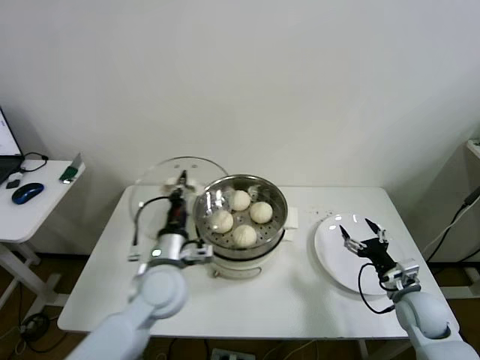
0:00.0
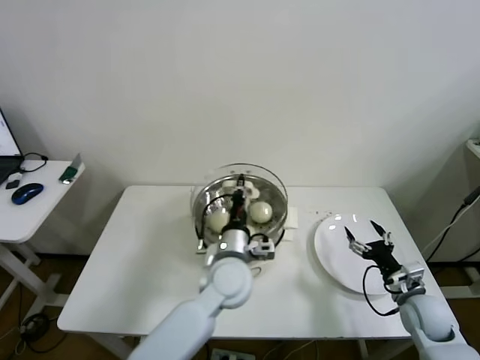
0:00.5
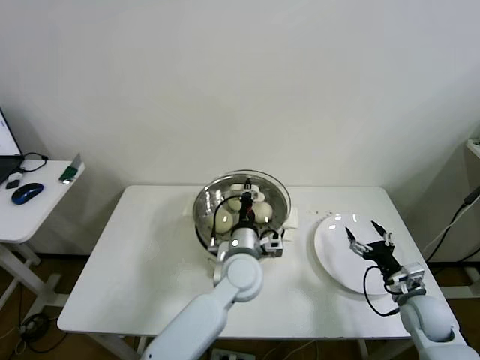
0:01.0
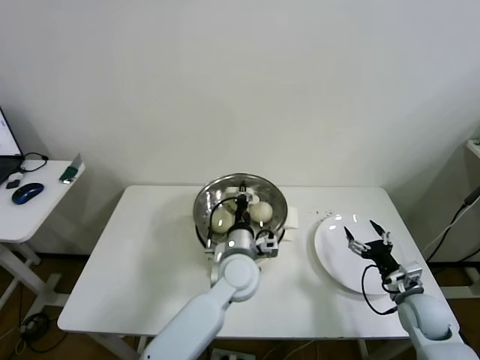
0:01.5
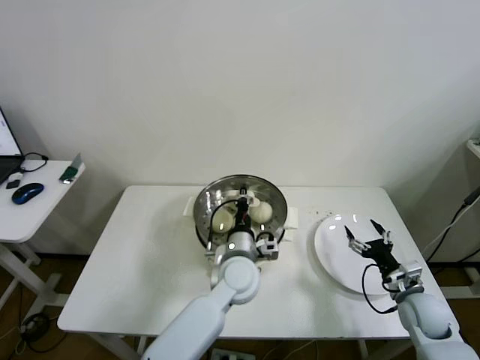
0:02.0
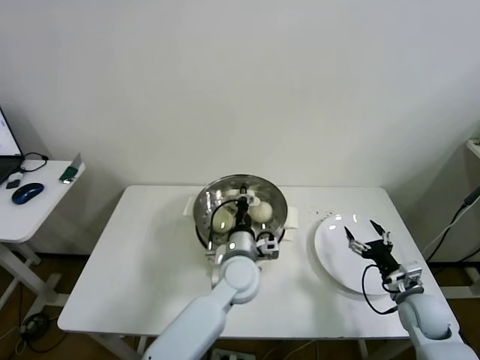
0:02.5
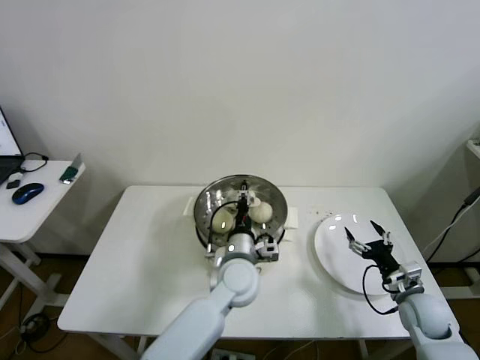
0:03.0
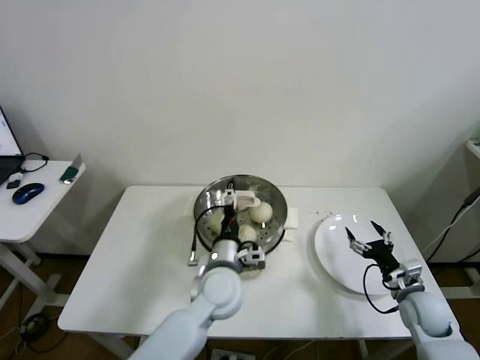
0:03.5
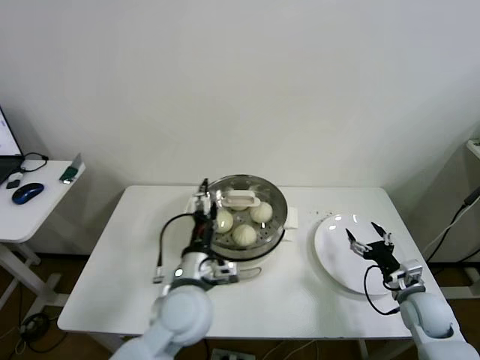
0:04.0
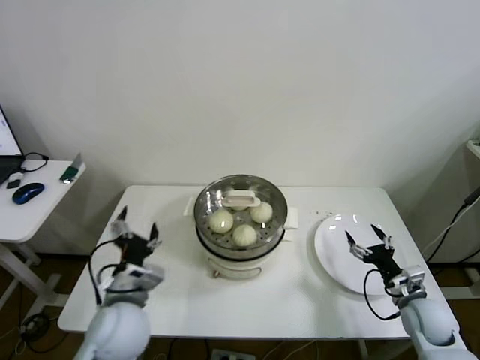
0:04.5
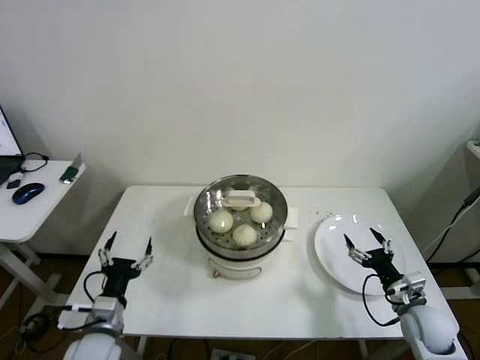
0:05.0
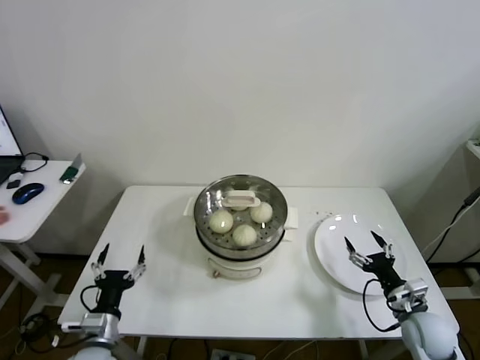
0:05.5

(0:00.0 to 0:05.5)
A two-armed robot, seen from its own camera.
Step, 0:00.0 - 0:03.5: Place the pot lid on the steamer with left gripper.
0:00.0 - 0:02.0: The left gripper travels to the right by roughly 15 cm.
0:02.0 - 0:03.5: The left gripper opens its fingers.
0:03.5 - 0:05.5: The left gripper is displaced to the left and backward by approximately 30 cm.

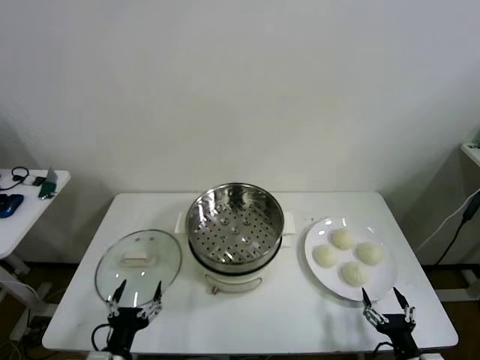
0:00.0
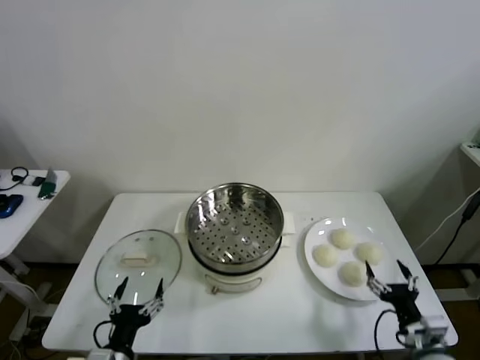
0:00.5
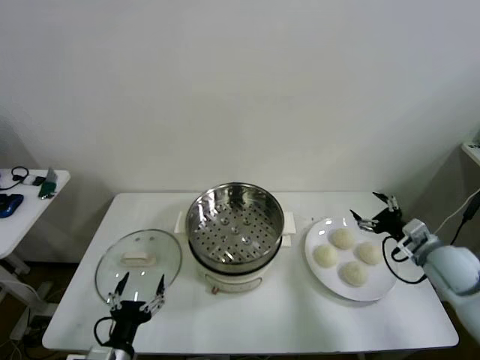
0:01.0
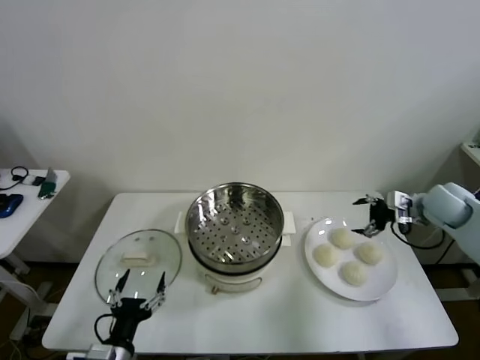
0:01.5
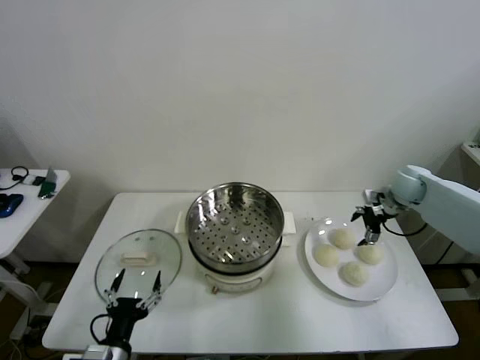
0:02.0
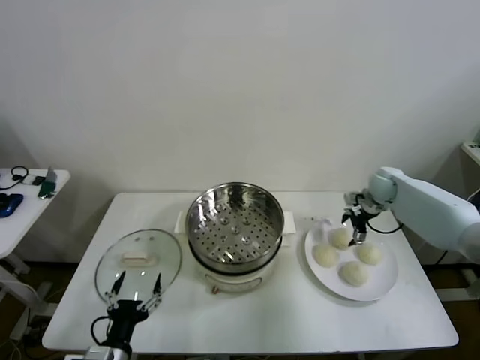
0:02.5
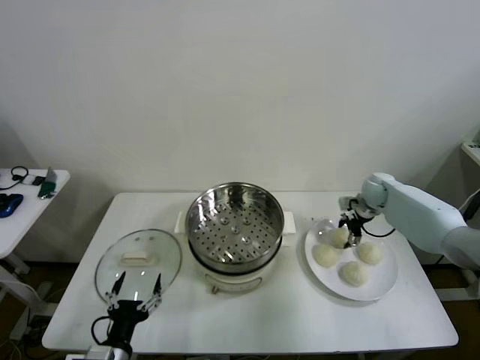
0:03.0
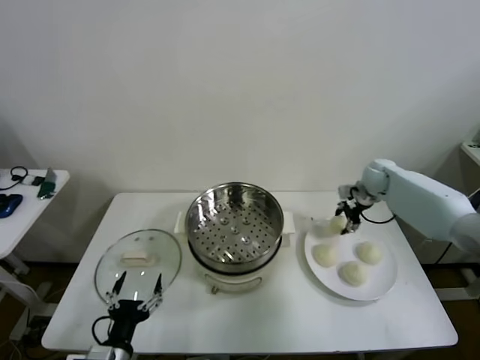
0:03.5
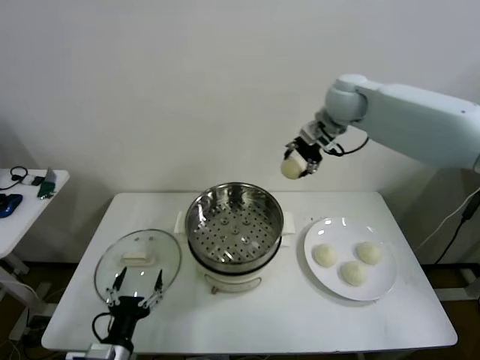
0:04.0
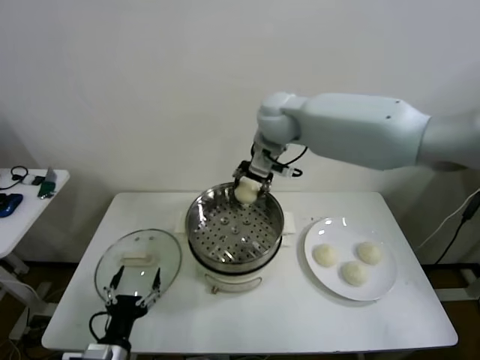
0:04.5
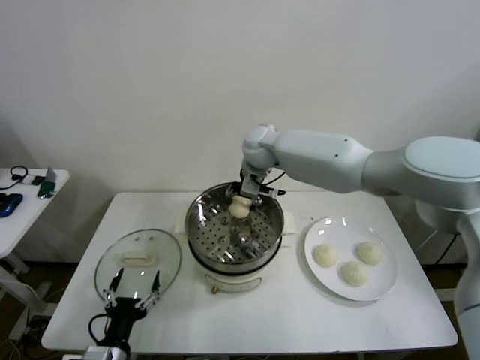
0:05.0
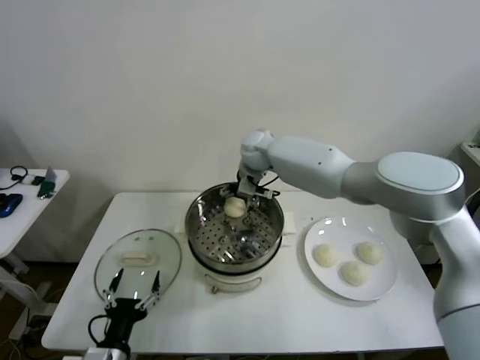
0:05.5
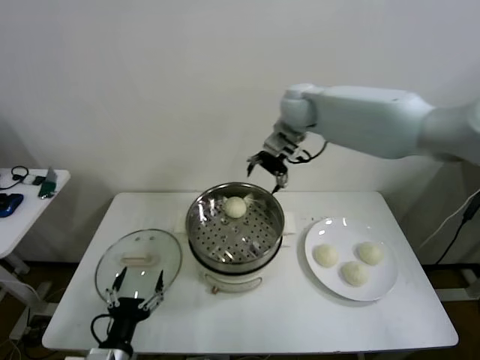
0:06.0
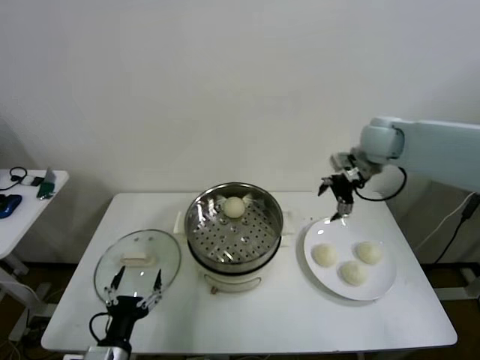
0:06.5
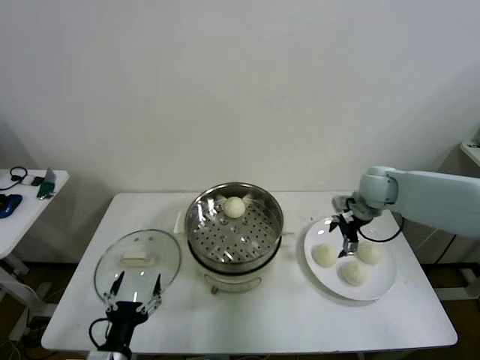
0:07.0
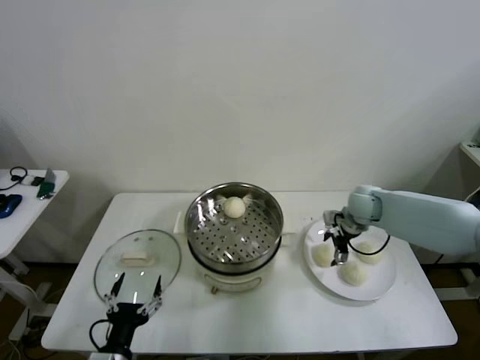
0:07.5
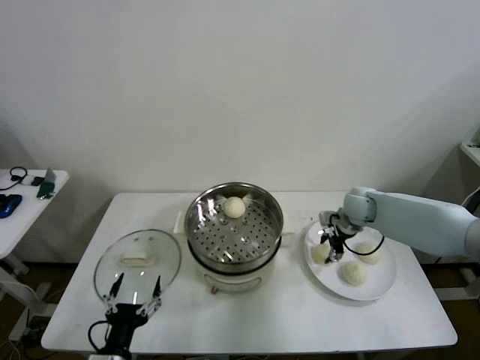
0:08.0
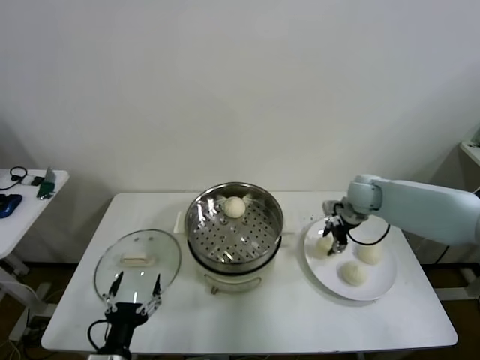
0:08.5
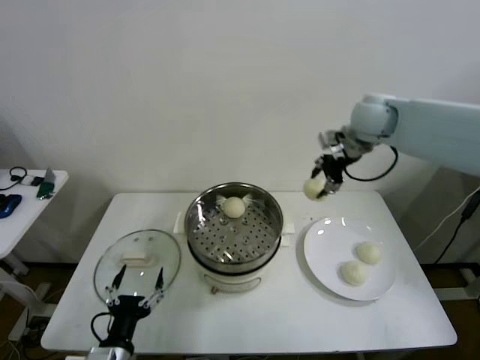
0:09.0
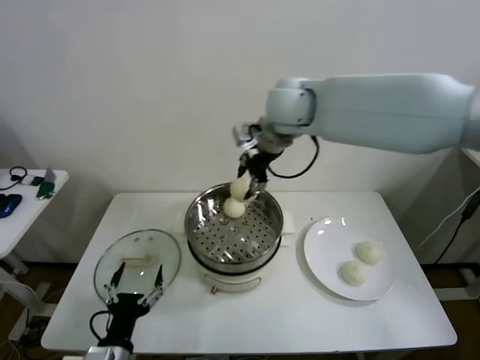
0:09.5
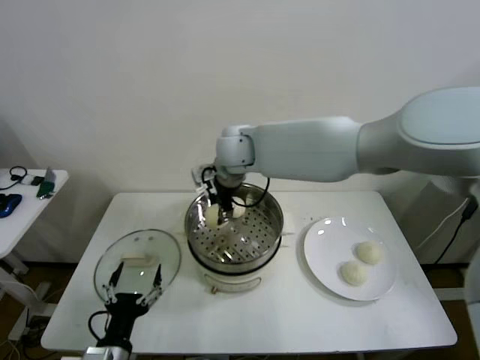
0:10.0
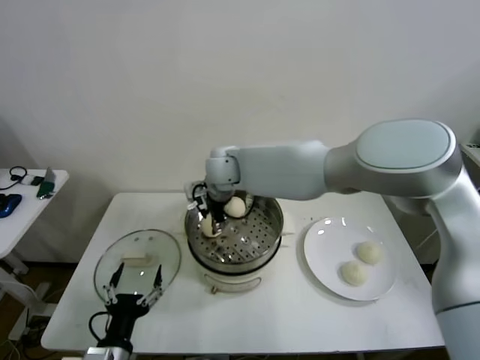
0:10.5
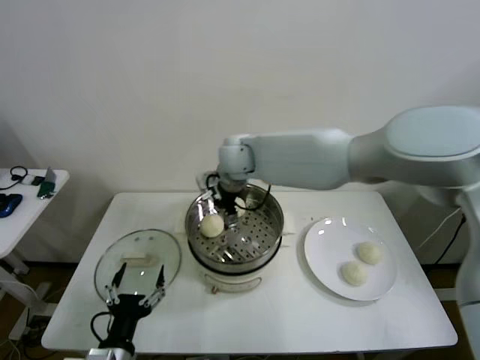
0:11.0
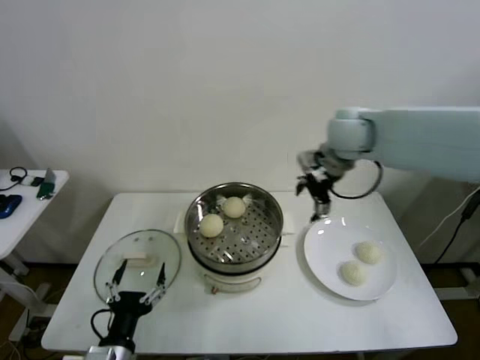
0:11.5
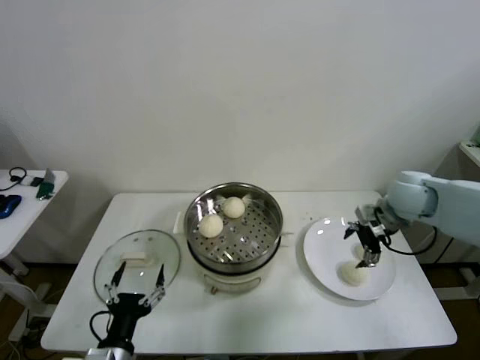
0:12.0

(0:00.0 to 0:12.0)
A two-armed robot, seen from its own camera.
Step, 0:00.0 - 0:03.0: Grasp the baozi in the plate with right gripper.
Step, 0:03.5 - 0:05.0: Place the baozi on the steamer with right gripper.
Step, 0:05.5 - 0:08.0: Grasp the baozi in the plate with right gripper.
Step, 0:08.5 - 0:10.5: Place the baozi on the steamer with right gripper.
0:02.0 - 0:04.0: The right gripper heads upward and to the left, covering about 30 cm, and closes its fingers.
0:04.0 - 0:06.0: The right gripper moves to the left, approximately 10 cm, and opens up.
0:06.0 - 0:08.0: The right gripper heads downward and to the right, covering some 30 cm, and closes.
0:08.0 - 0:10.0: The right gripper goes roughly 35 cm to the left and upward.
0:10.0 - 0:12.0: The right gripper is displaced to the right by about 35 cm, and opens its fingers.

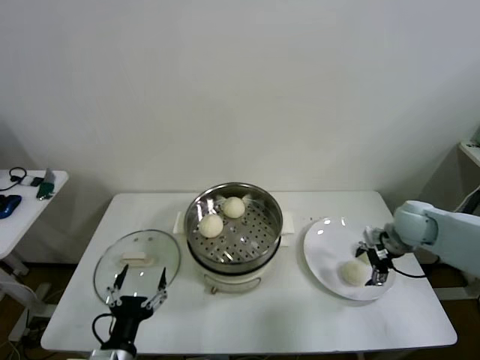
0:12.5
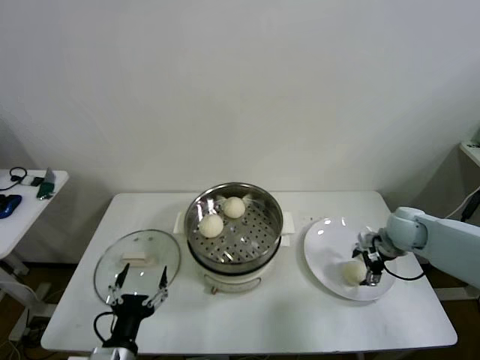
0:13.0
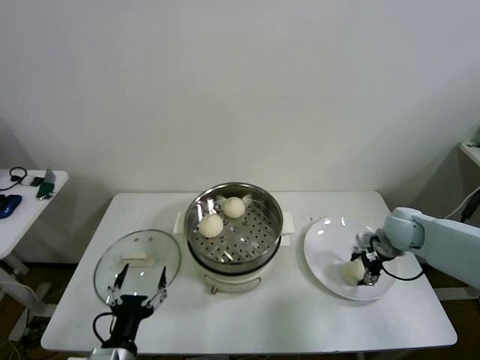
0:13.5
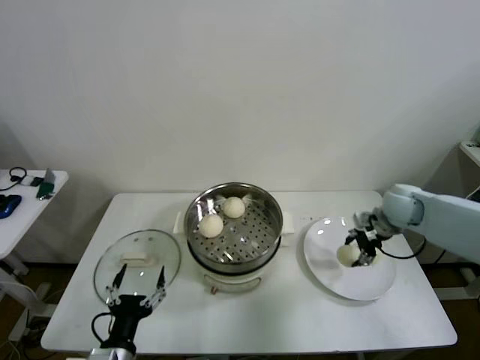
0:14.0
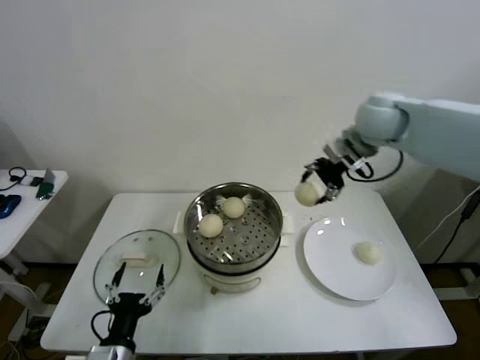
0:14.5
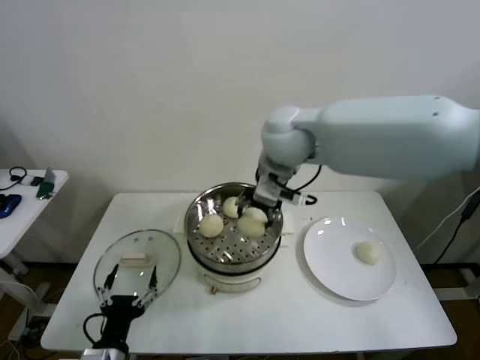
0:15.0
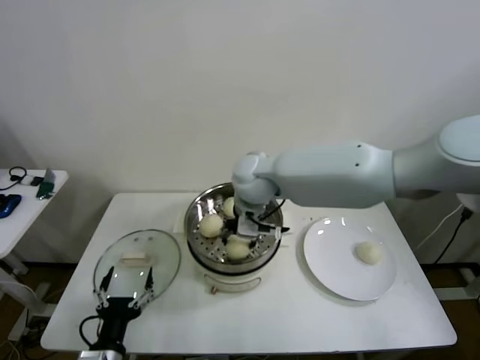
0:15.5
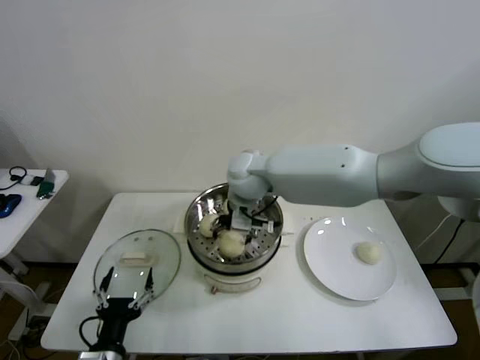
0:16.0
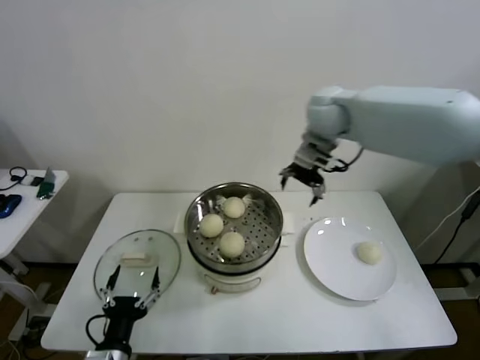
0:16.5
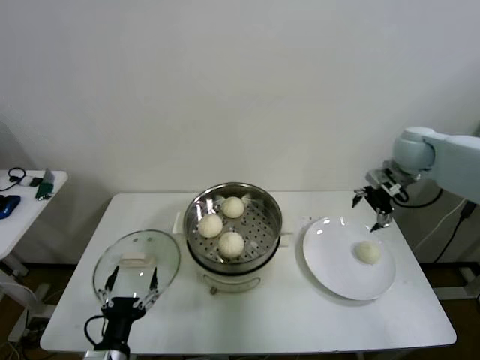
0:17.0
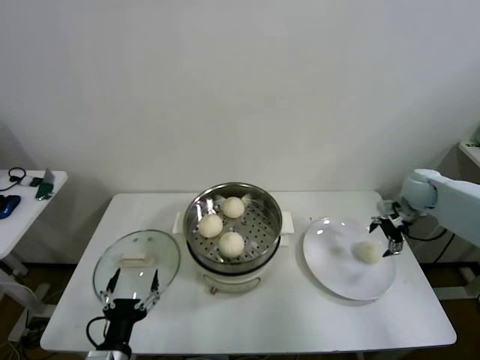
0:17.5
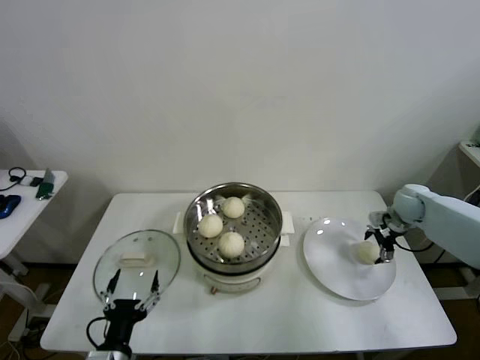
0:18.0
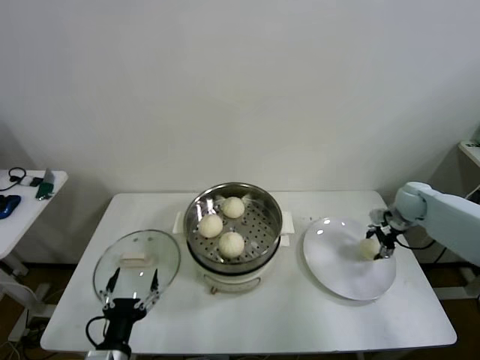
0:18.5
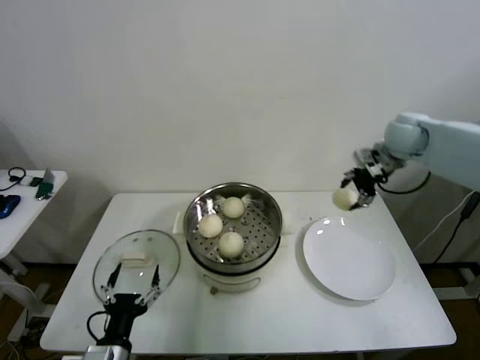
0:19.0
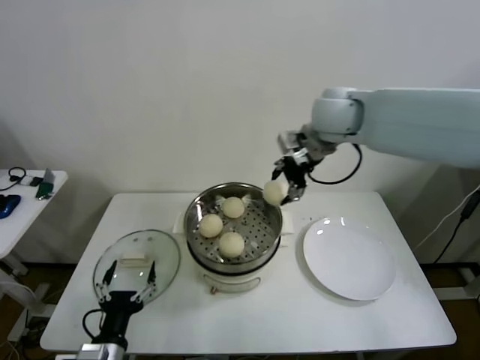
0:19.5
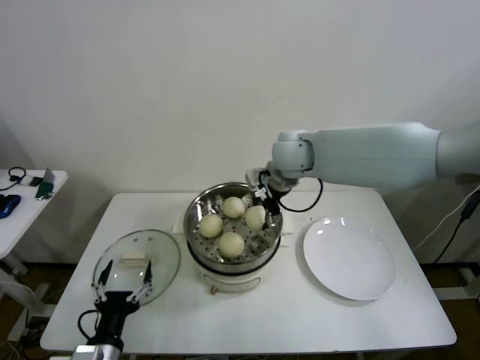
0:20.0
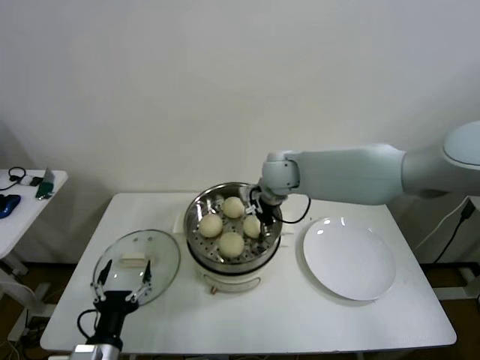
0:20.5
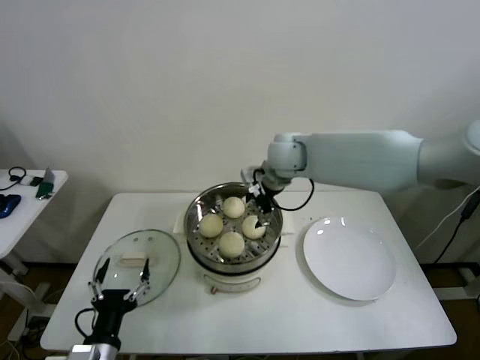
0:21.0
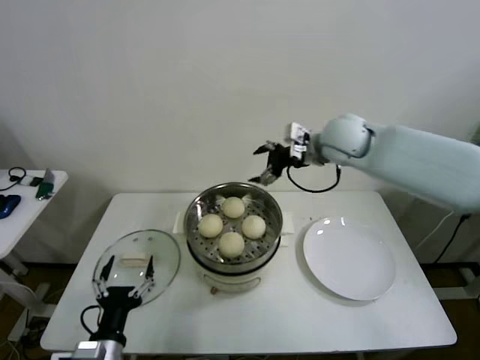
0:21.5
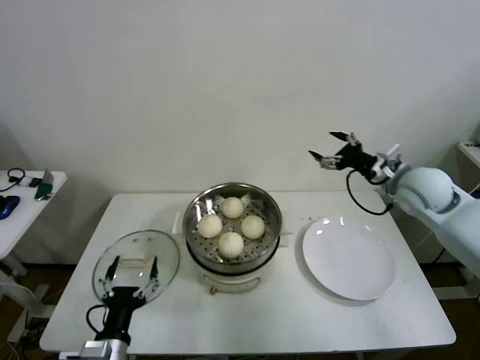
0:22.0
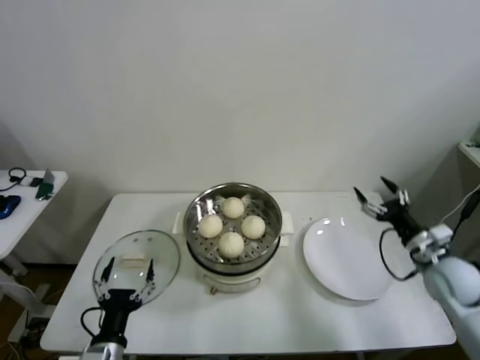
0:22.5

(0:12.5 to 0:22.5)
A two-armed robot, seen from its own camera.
Step, 0:14.0 - 0:16.0: Place the baozi on the steamer with right gripper.
Step, 0:16.5 - 0:18.0: Grasp the baozi in the plate with right gripper.
Step, 0:18.5 - 0:20.5: Place the baozi on the steamer with right gripper.
0:12.5 - 0:14.5: The right gripper is displaced upward and to the left by about 25 cm, and closes.
0:14.5 - 0:16.5: The right gripper is displaced to the left by approximately 10 cm, and opens.
0:16.5 - 0:18.5: The right gripper travels to the right and downward by roughly 40 cm, and closes.
0:18.5 - 0:20.5: The right gripper goes approximately 35 cm to the left.
0:20.5 - 0:22.5: The right gripper heads to the right and backward, covering about 40 cm, and opens its fingers.
